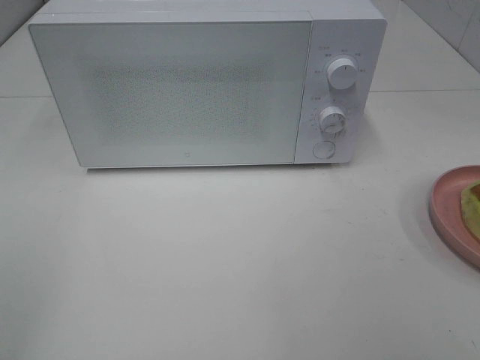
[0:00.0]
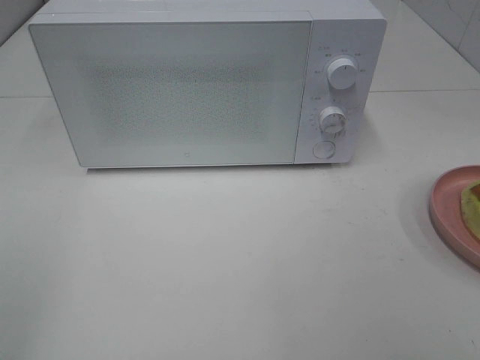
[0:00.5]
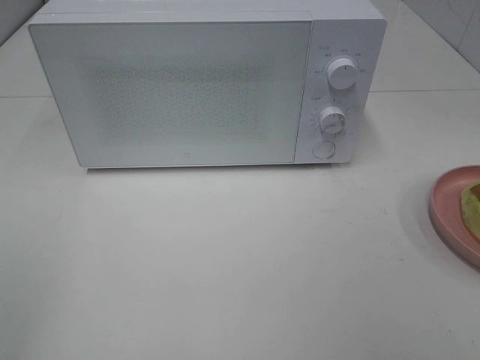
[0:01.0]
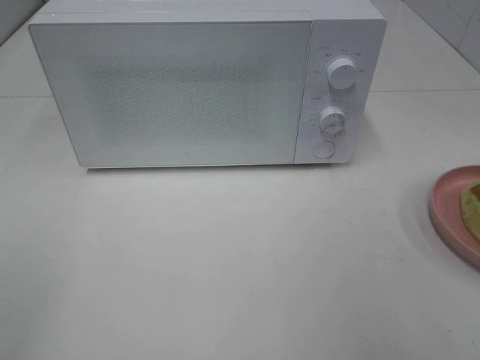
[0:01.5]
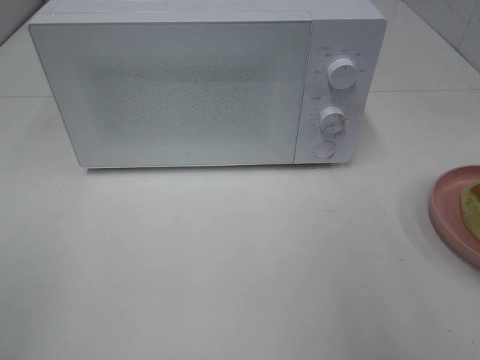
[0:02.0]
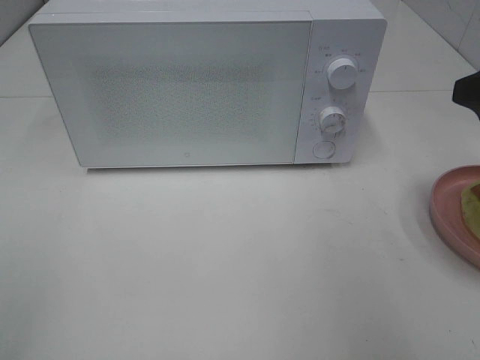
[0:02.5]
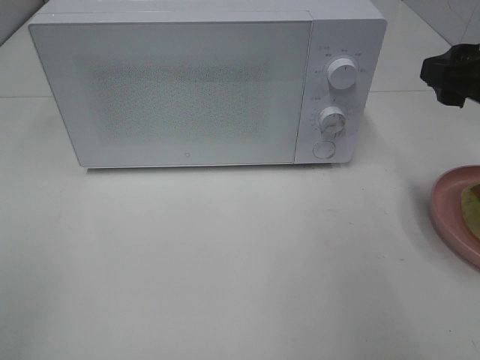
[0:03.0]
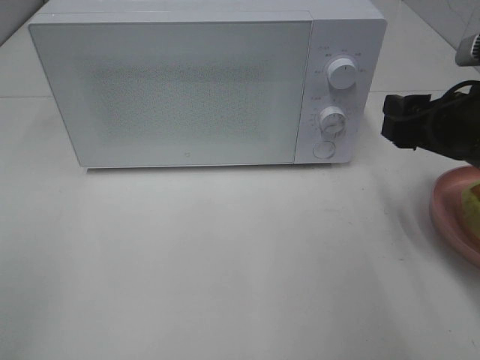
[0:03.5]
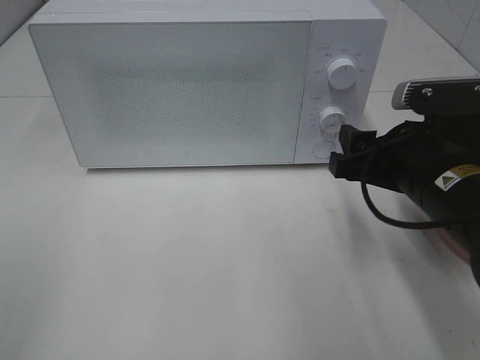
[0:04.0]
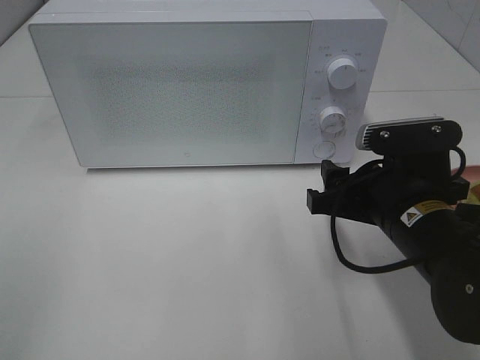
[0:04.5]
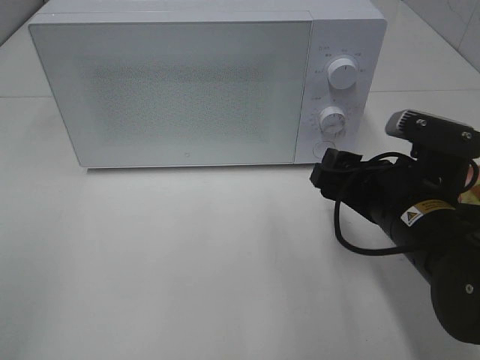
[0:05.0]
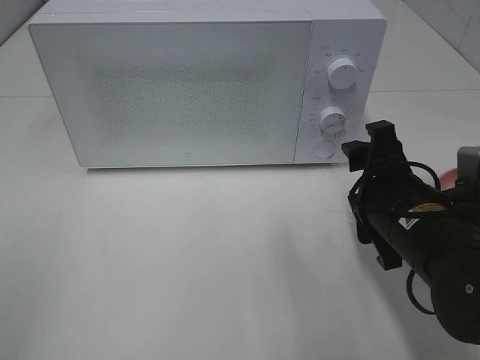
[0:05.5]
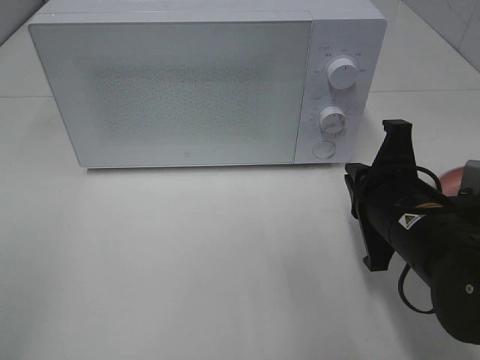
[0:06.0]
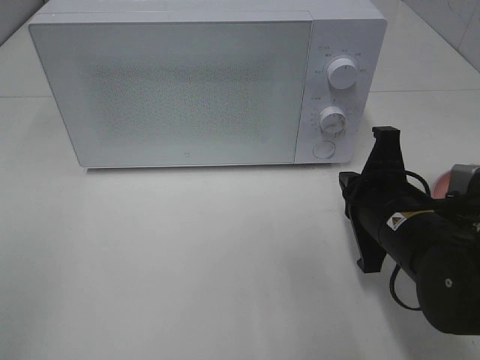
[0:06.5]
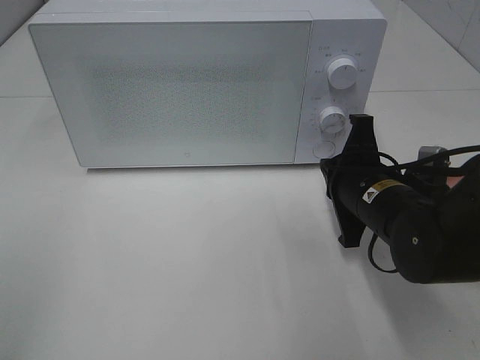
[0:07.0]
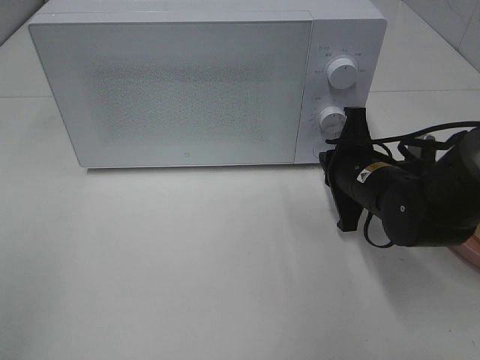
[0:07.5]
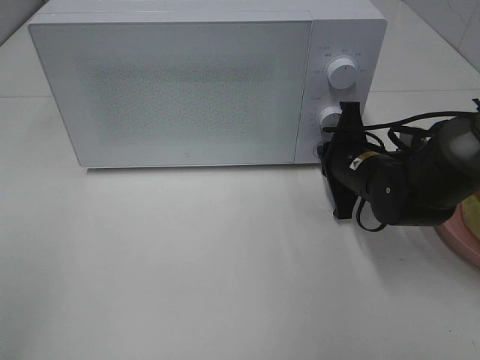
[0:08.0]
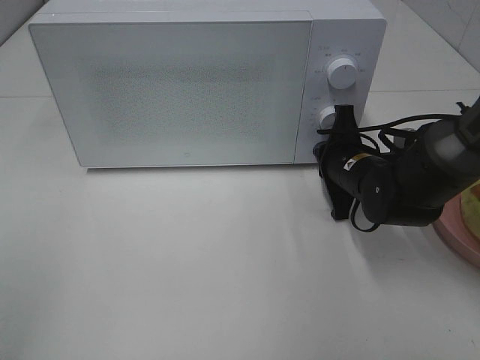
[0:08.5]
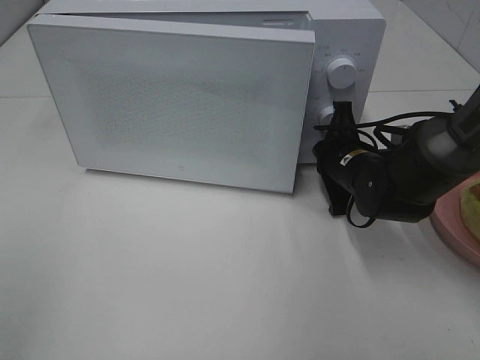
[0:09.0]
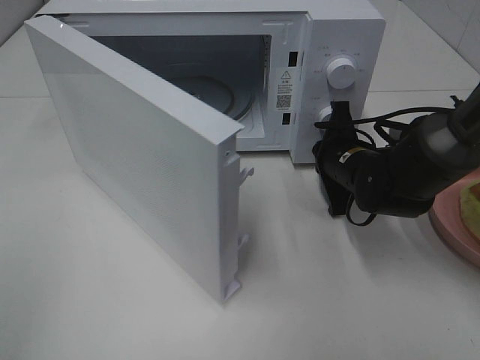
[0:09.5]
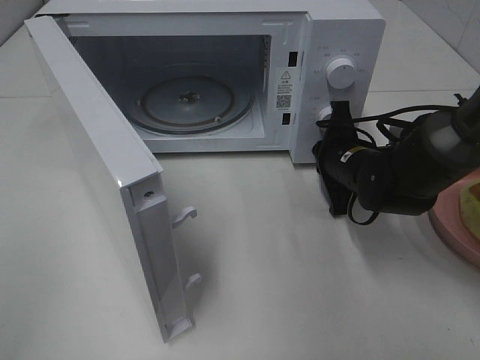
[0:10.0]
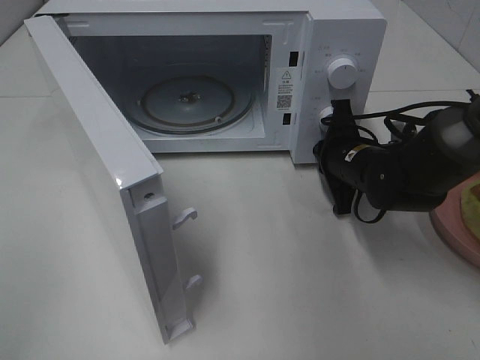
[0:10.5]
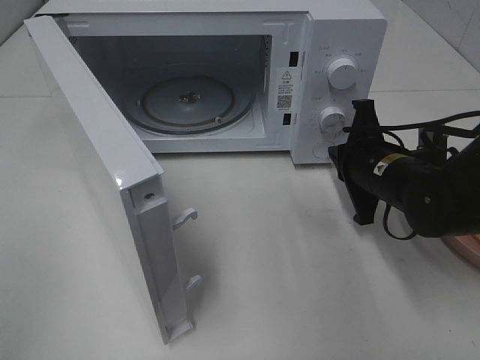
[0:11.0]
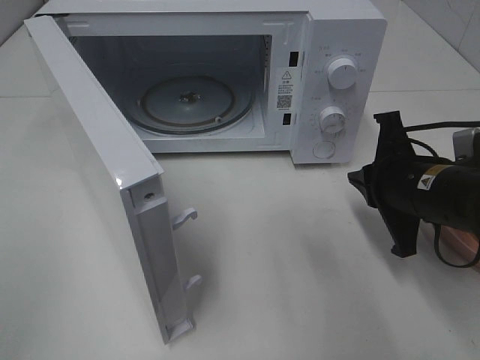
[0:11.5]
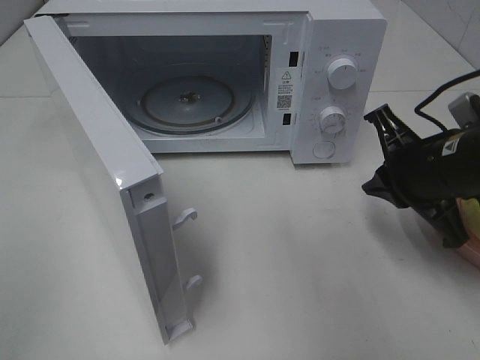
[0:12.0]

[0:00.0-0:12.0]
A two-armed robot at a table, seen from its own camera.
Task of the whole recording: Heat Sandwich.
Step, 0:00.0 to 0:11.0: Right hand: press the switch.
0:02.0 to 0:04.0: The right gripper is displaced downward, to the left and forward by roughly 20 cm.
0:04.0 to 0:06.0: The right gripper closes its fingers.
0:06.0 to 0:08.0: The right gripper shifts about 15 cm forward and downward.
0:10.0 to 0:12.0: The right gripper moves backward and upward, roughly 15 cm.

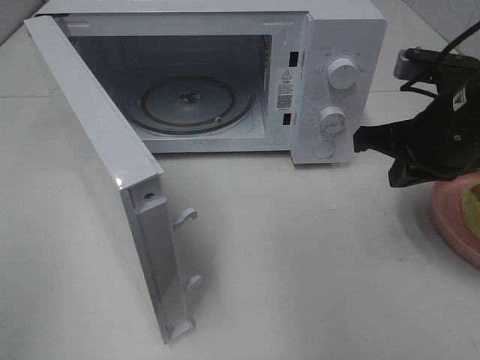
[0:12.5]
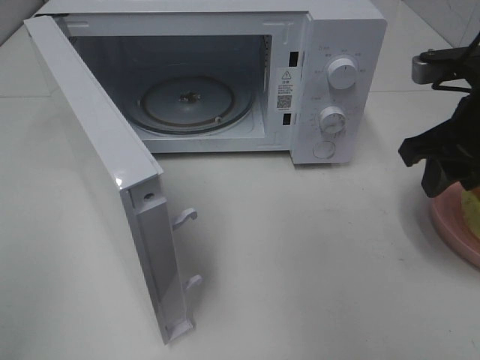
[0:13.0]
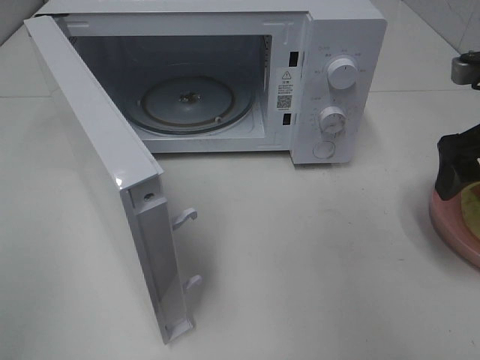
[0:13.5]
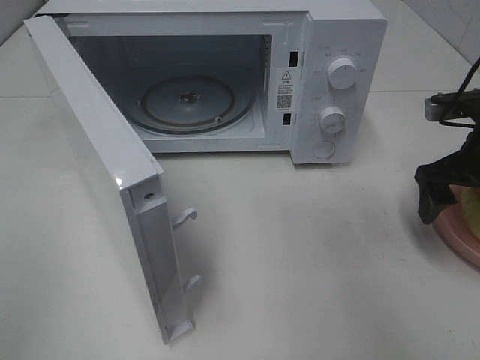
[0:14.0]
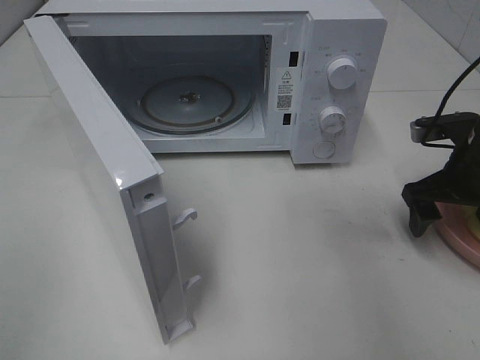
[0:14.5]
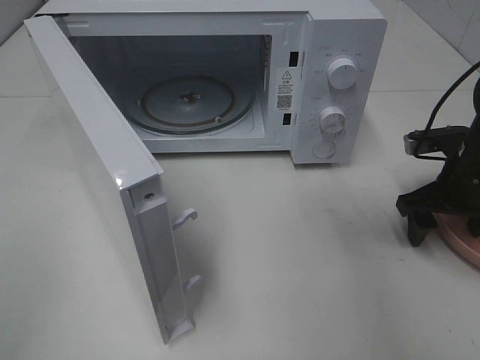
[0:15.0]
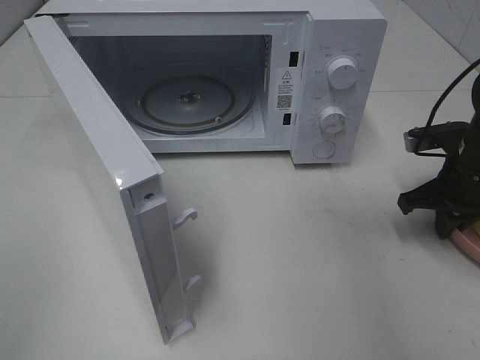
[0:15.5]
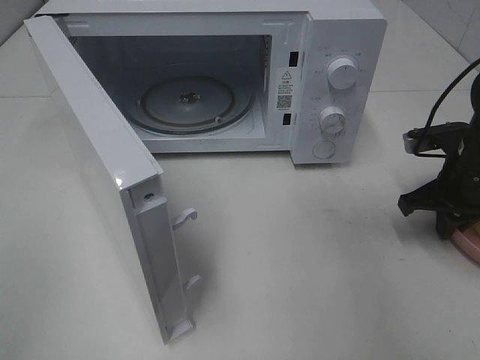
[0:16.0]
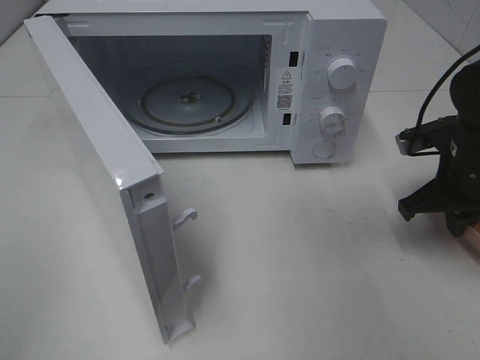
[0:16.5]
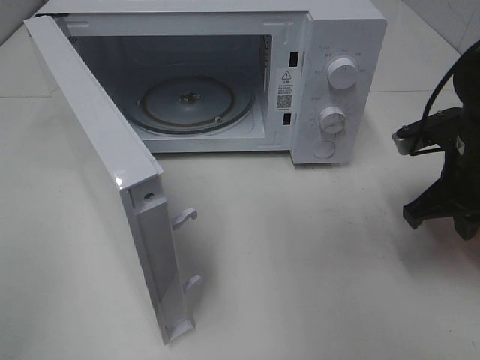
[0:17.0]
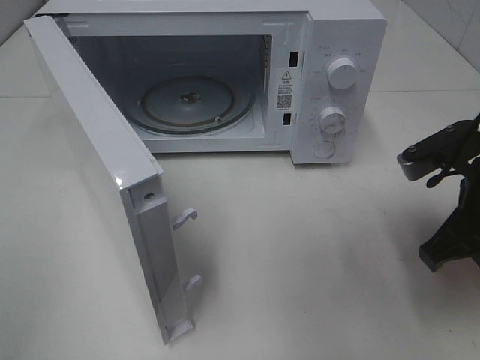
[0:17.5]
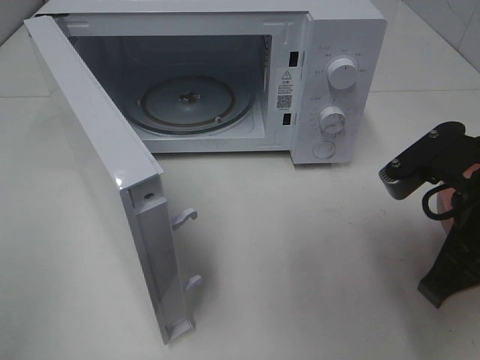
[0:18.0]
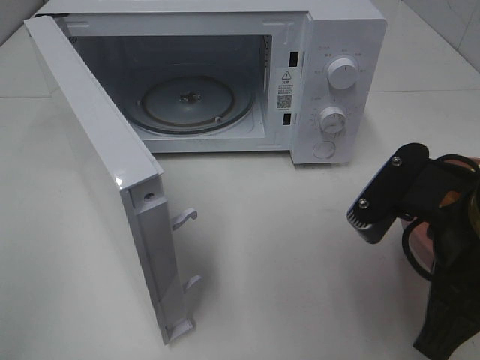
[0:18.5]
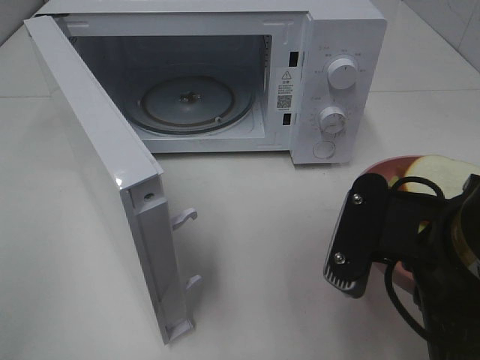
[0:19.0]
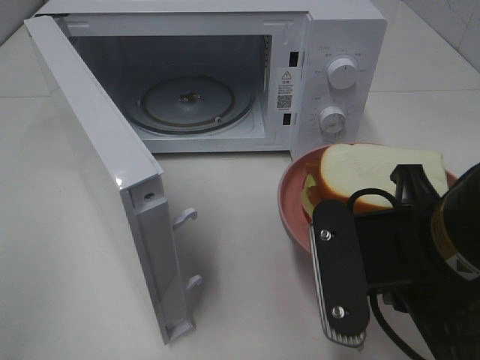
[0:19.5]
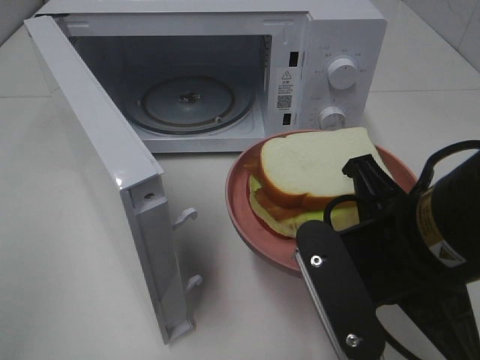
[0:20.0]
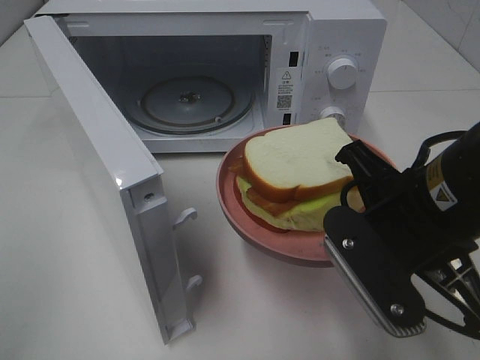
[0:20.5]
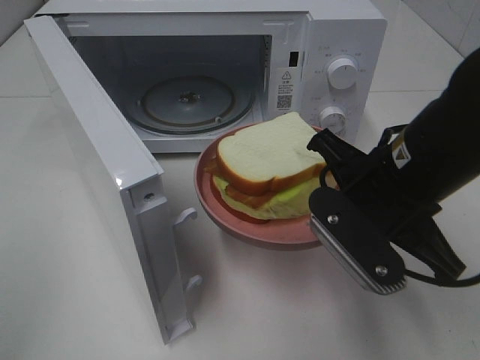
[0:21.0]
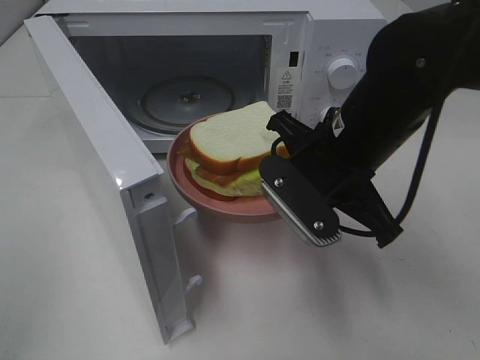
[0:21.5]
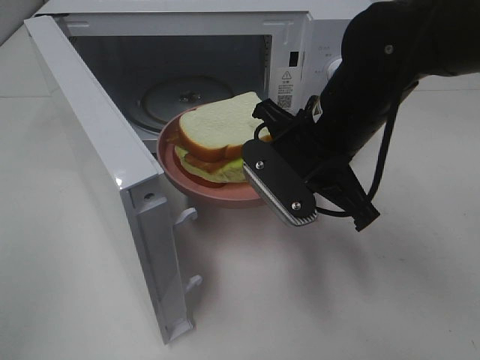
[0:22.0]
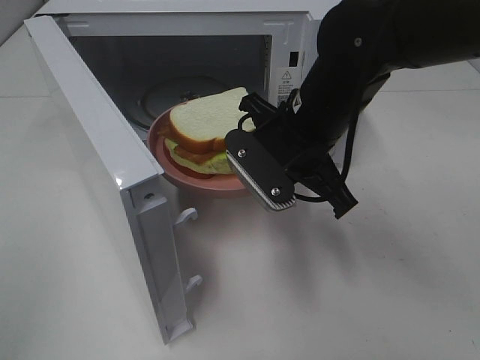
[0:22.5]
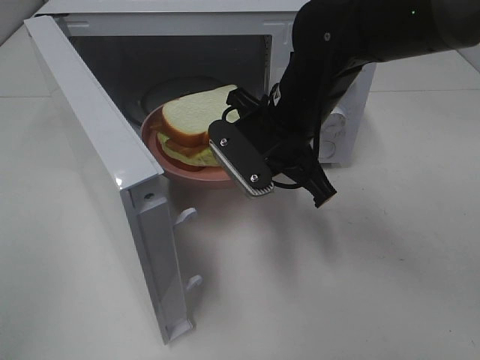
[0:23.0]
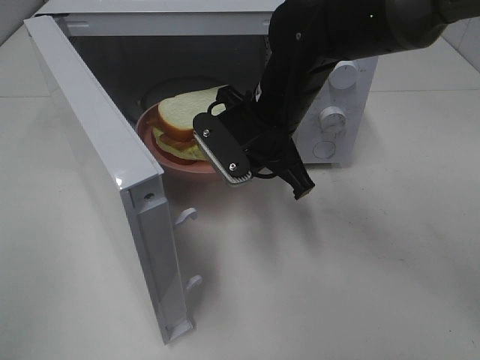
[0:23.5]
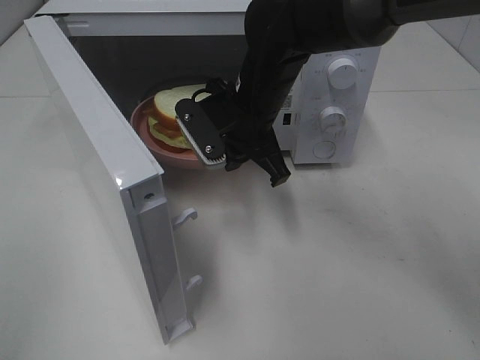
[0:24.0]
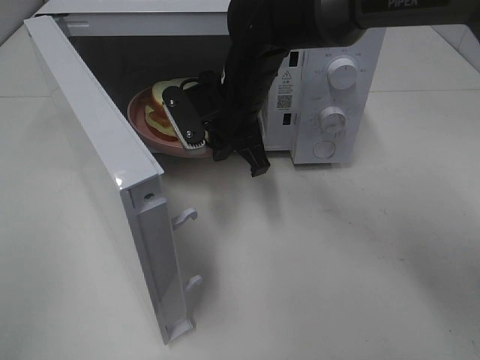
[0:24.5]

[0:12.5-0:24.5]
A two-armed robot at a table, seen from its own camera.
Task of the whole recording: Heat Sandwich.
Step, 0:12.5 to 0:16.0: Right hand: grab the plate with the sandwich.
0:12.5 to 0:14.5: The right gripper heads downward and to the right, covering about 10 cm, and opens up.
0:14.5 to 0:16.5: The right gripper closes.
0:16.5 to 0:18.5: The right gripper shifts about 20 cm backward, to the left and upward.
0:20.5 to 0:22.5: The right gripper travels forward and to the left by some 15 cm.
0:22.5 to 0:24.5: The right gripper goes roughly 10 cm forward and to the left.

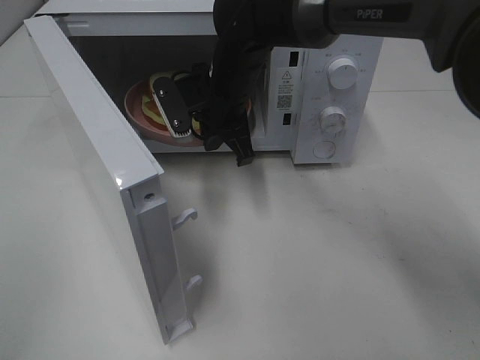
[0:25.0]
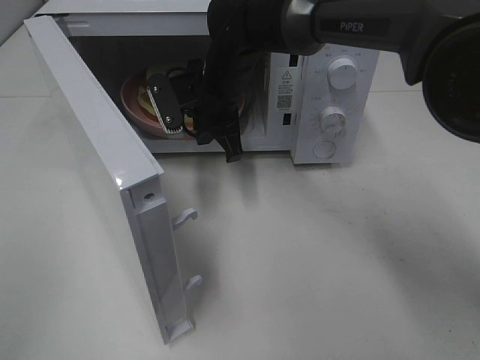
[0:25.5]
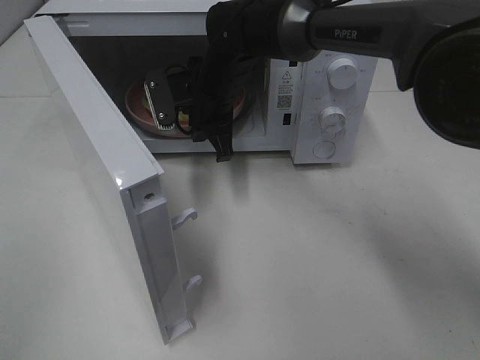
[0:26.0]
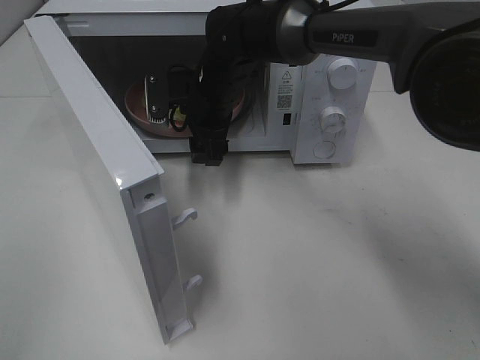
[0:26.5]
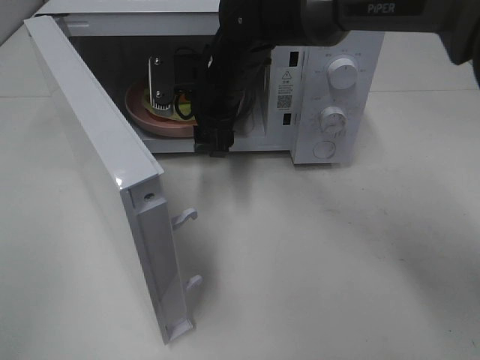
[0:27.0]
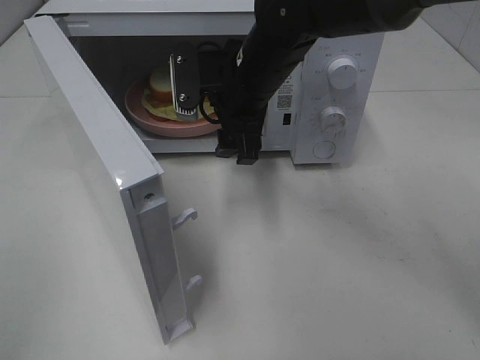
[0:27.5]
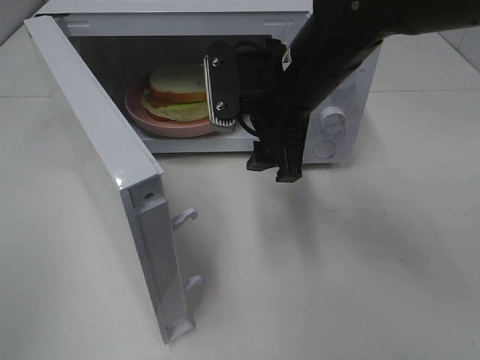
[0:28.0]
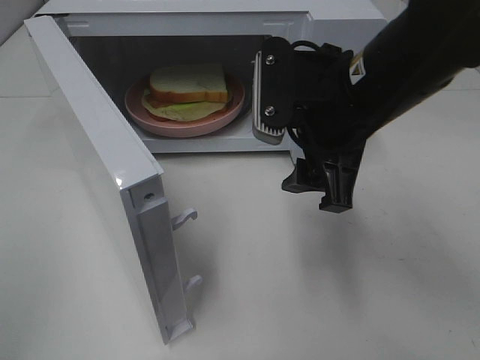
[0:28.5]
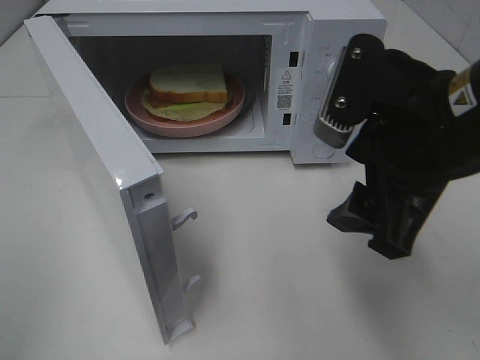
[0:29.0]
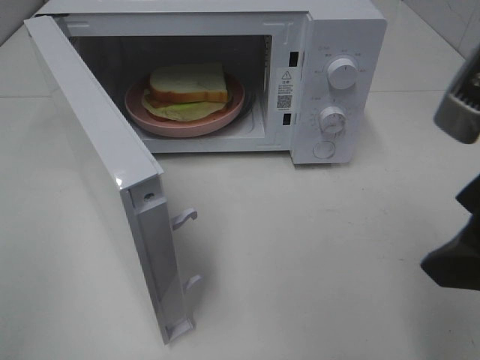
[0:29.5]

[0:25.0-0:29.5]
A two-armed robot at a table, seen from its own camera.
Task of the whole recording: Heat Sandwich.
Step, 0:25.0 to 0:27.0: Right hand: place the plate in the microwave.
0:25.0 to 0:27.0: The right gripper opens its fingers.
0:27.0 to 0:29.5: The right gripper heads backward and to the right, covering some 35 cm.
